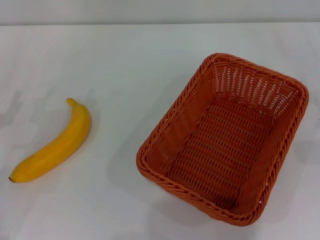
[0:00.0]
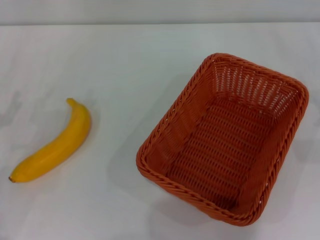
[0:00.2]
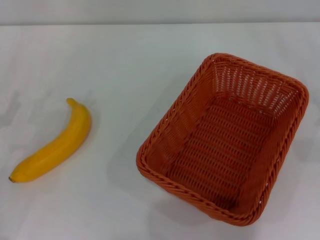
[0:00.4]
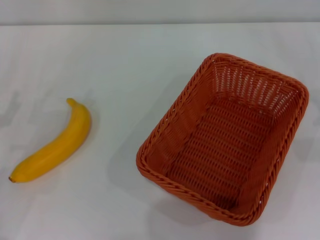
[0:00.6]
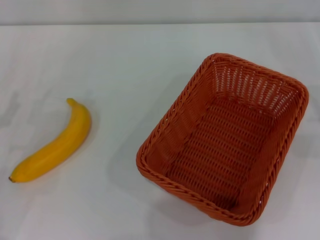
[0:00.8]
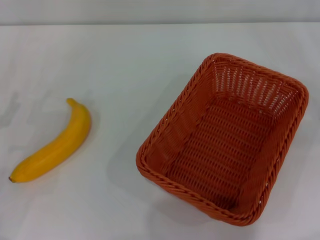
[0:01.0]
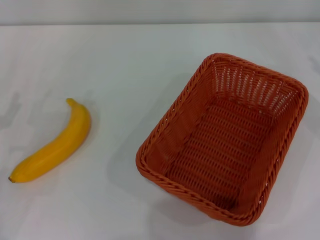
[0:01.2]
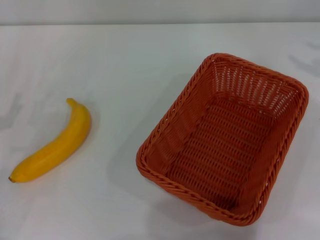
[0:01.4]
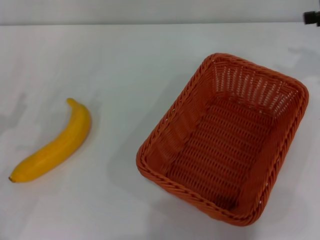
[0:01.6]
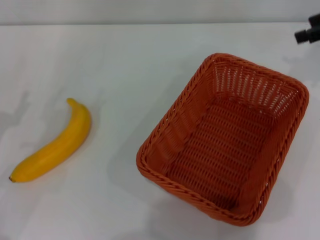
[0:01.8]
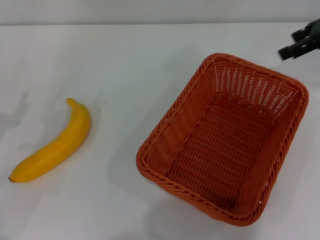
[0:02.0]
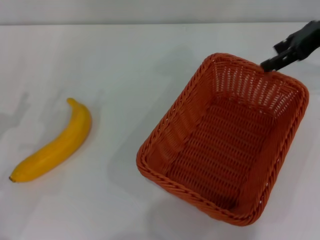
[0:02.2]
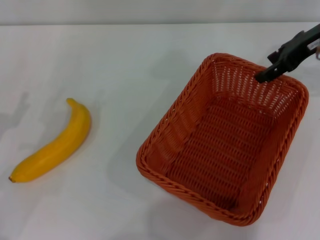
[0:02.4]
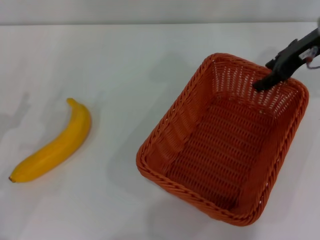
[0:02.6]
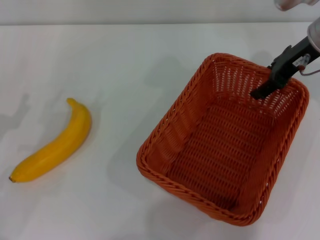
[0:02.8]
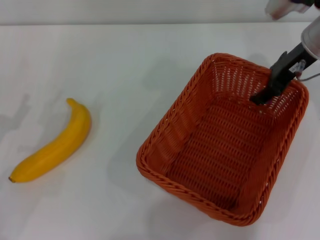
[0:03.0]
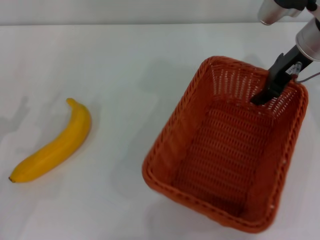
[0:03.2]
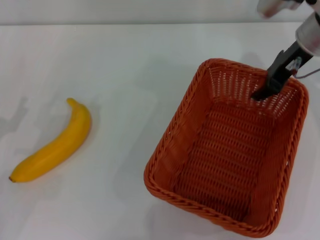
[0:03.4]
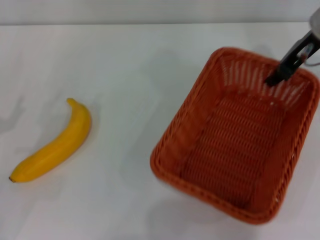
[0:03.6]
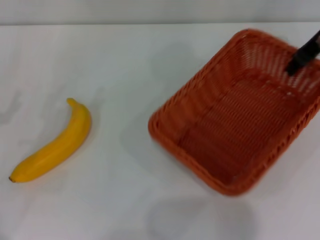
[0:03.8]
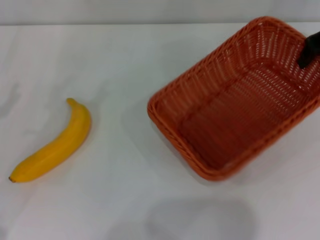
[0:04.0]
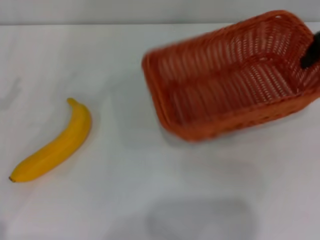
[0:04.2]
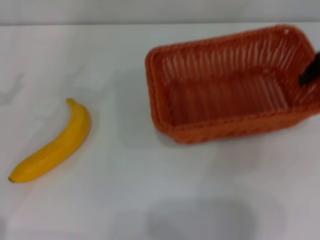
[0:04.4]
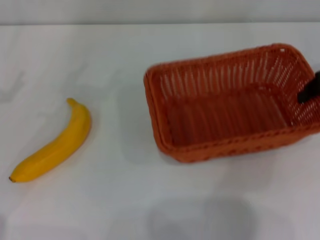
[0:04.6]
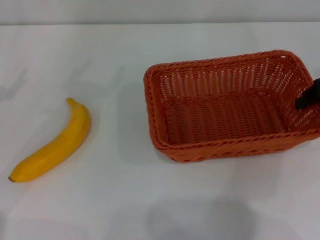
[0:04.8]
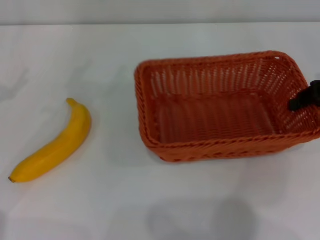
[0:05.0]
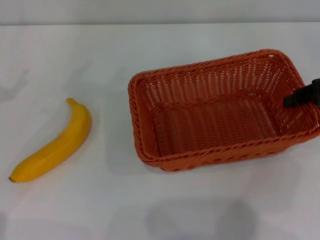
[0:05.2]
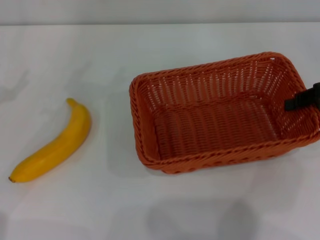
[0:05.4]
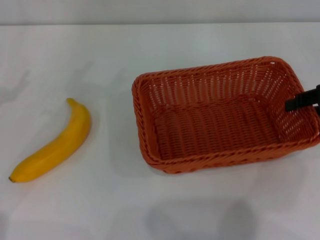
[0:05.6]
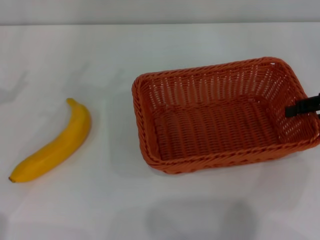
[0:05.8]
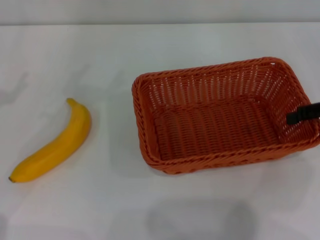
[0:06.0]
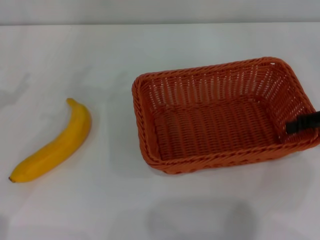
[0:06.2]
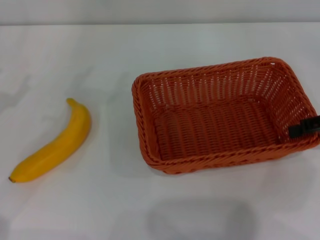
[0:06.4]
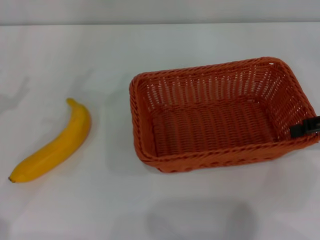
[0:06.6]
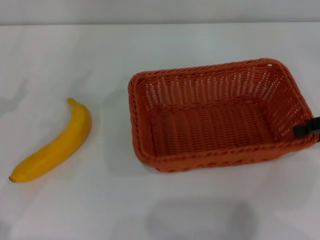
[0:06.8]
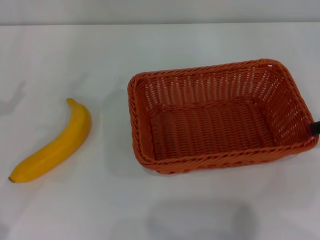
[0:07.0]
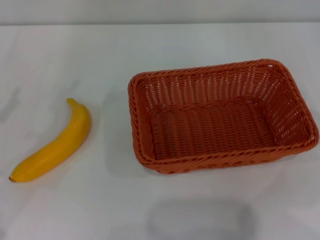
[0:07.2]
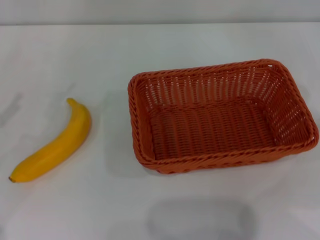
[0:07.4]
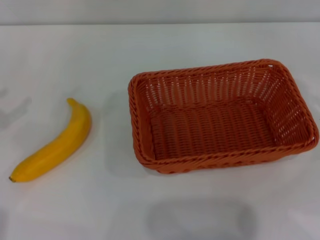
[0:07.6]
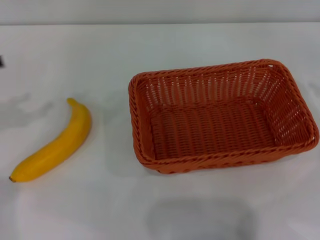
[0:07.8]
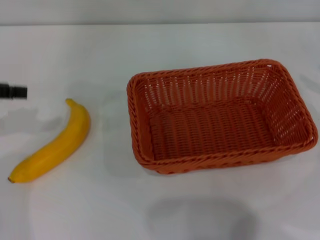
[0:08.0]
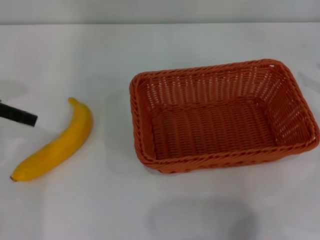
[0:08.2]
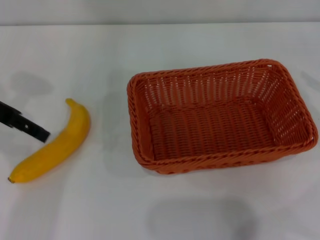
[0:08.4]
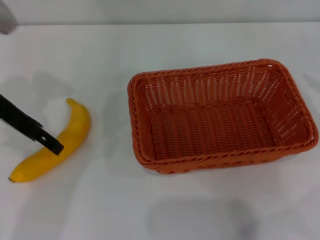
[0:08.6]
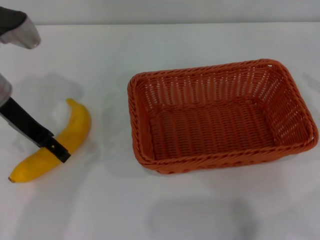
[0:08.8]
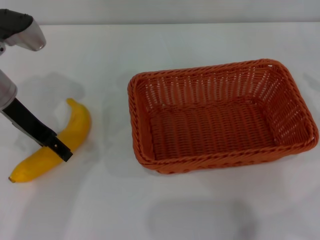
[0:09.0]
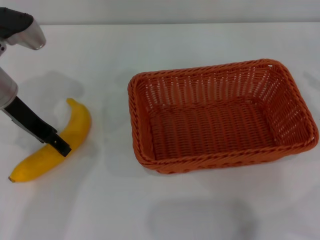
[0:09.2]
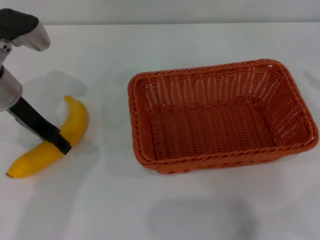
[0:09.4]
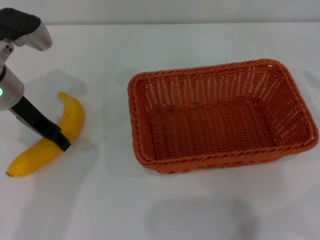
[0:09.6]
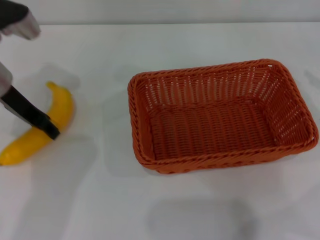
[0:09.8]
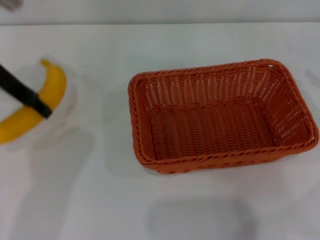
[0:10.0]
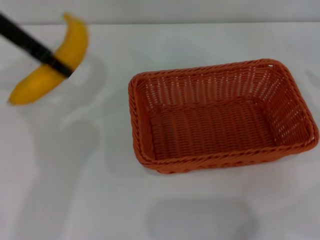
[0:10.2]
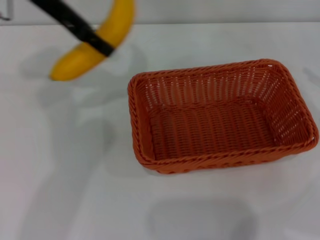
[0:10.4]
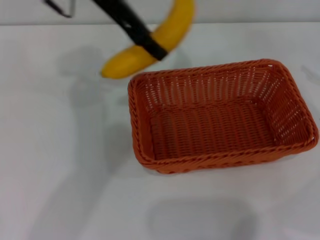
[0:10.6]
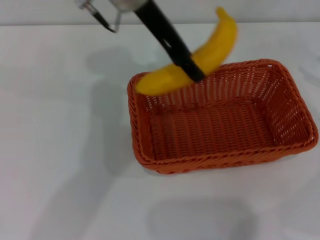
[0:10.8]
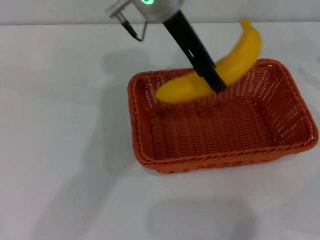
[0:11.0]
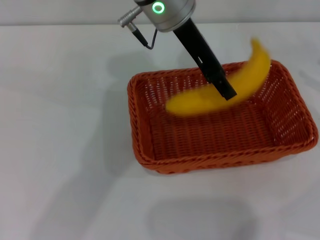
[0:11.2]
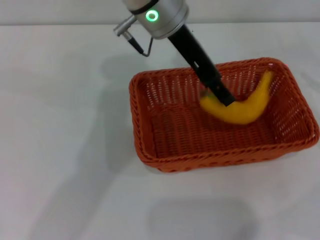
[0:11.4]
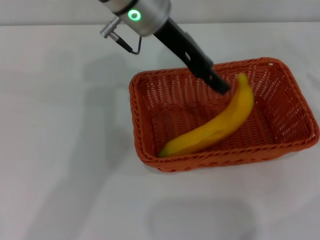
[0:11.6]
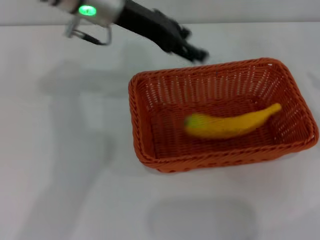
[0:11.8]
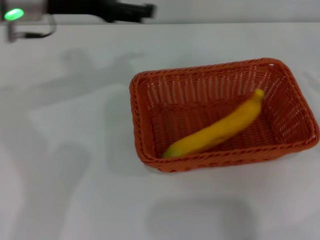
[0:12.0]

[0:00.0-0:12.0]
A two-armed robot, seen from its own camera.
Step, 0:00.0 to 0:04.2: Pick up the light basket with the right gripper.
Step, 0:04.4 to 0:07.4: Place the light basket in the center of view with the right gripper.
Step, 0:07.8 to 0:10.0: Pick up the banana with the left gripper.
Step, 0:10.2 to 0:11.8: Place the banana into the light basket with the left gripper.
0:00.0 to 0:01.6: The right gripper shifts roughly 20 cm upward and forward.
0:01.6 to 0:03.0: The right gripper travels to the left by about 15 cm.
0:03.0 to 0:04.4: The right gripper travels to the right by roughly 10 cm, and closes, while the left gripper heads upward, covering some 5 cm.
0:04.4 to 0:06.0: The right gripper travels backward and downward by about 10 cm, and opens up.
0:06.0 to 0:07.6: The right gripper moves to the right, roughly 10 cm, while the left gripper ends up roughly 5 cm from where it was.
0:07.6 to 0:09.0: The left gripper is displaced to the right and forward by roughly 20 cm.
0:09.0 to 0:10.4: The left gripper goes approximately 15 cm upward, to the right and forward, and closes up.
0:10.4 to 0:12.0: The left gripper shifts approximately 5 cm downward, moves some 20 cm to the right and comes back, and opens its fingers.

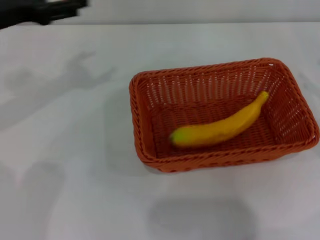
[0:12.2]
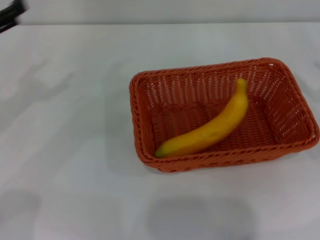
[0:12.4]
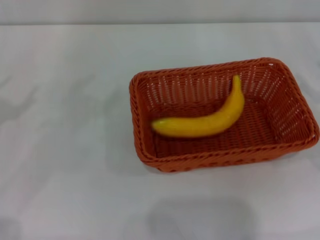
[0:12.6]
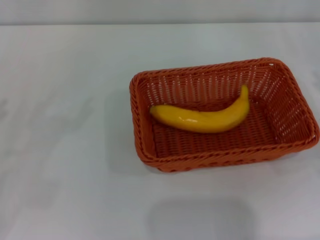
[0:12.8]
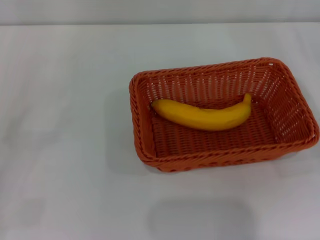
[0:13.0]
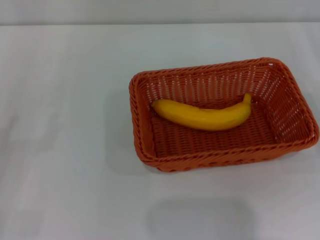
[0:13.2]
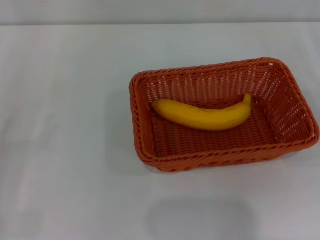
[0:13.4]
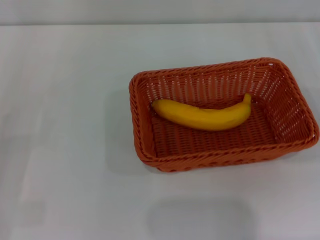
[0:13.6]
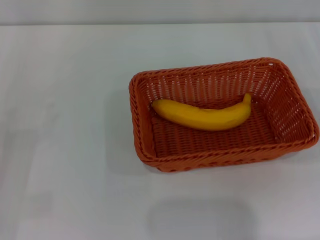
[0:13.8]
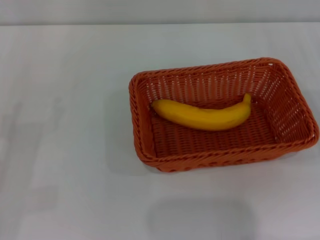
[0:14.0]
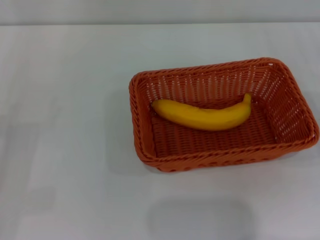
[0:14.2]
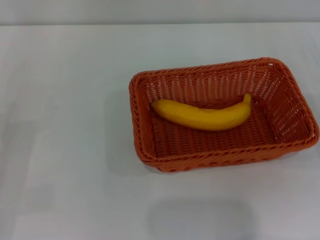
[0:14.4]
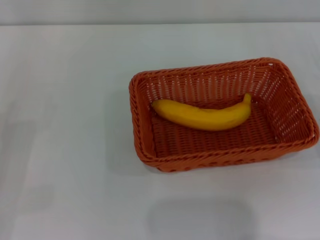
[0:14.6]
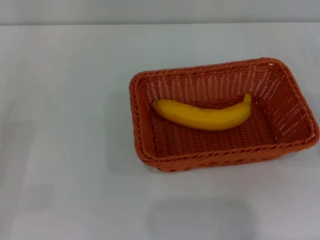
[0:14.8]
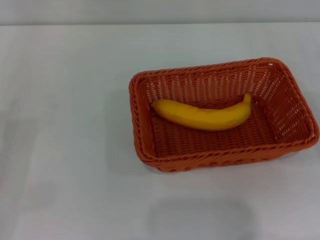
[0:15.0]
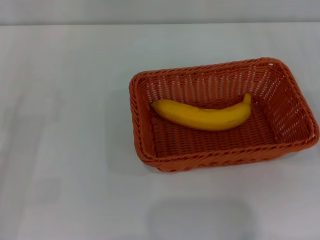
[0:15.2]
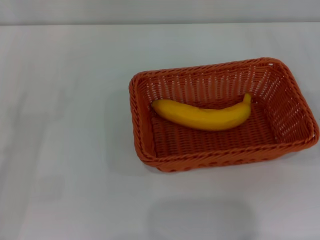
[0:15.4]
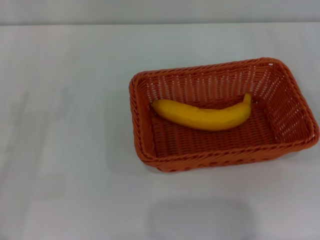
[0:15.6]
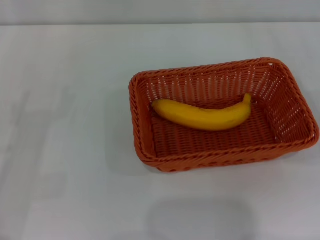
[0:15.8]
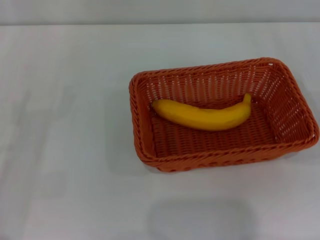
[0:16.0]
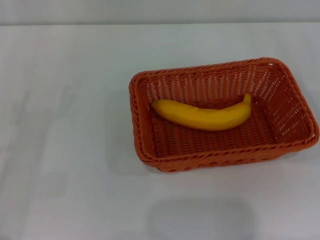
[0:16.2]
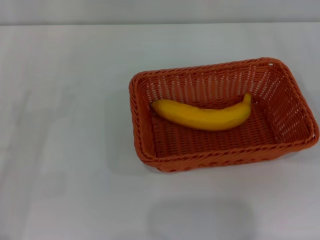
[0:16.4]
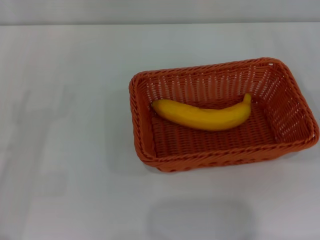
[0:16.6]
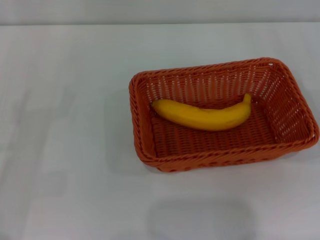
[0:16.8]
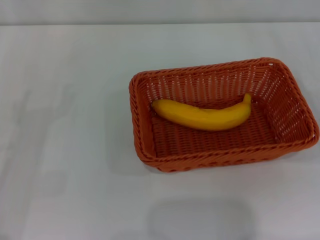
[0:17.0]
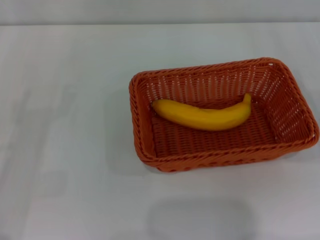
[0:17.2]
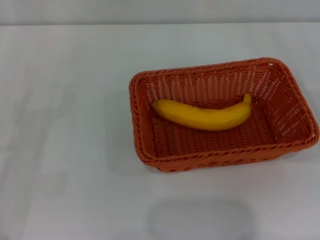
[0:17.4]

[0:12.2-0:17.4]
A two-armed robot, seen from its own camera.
0:12.2 to 0:14.0: The left gripper moves backward, downward and to the left, approximately 20 cm; the right gripper heads downward, covering some 5 cm.
0:15.6 to 0:17.4: The two grippers keep their place.

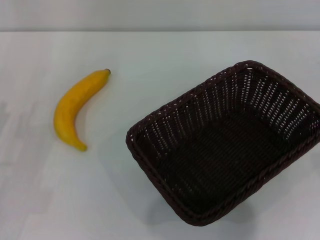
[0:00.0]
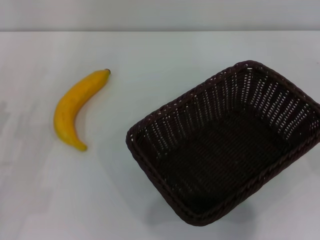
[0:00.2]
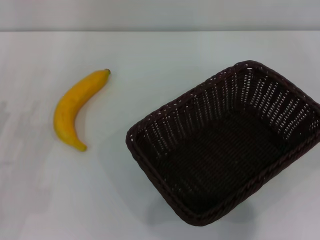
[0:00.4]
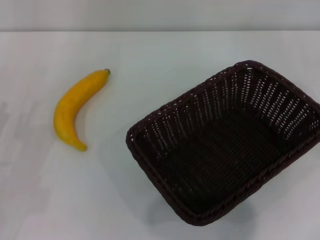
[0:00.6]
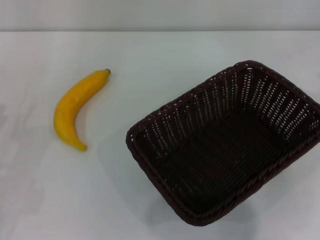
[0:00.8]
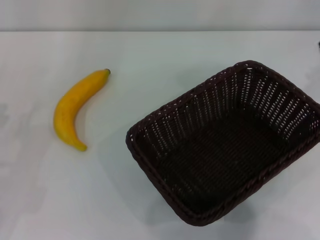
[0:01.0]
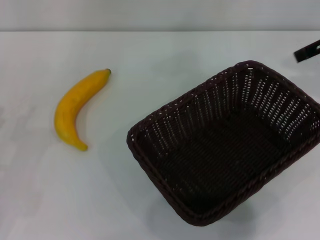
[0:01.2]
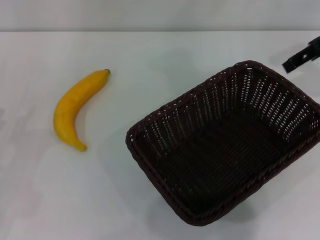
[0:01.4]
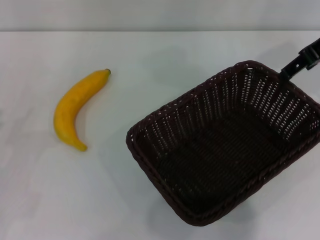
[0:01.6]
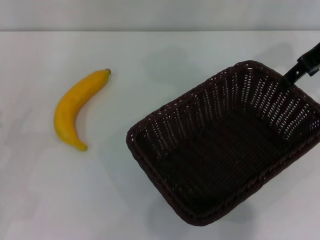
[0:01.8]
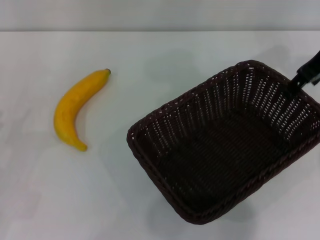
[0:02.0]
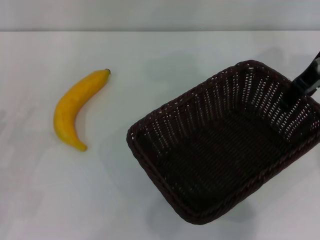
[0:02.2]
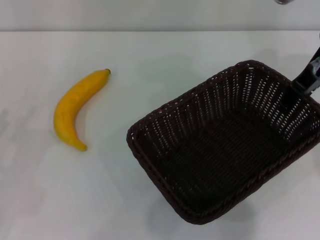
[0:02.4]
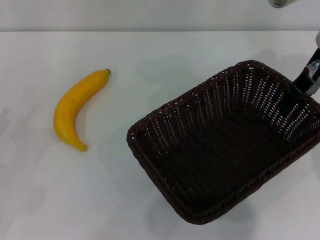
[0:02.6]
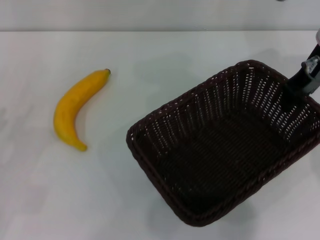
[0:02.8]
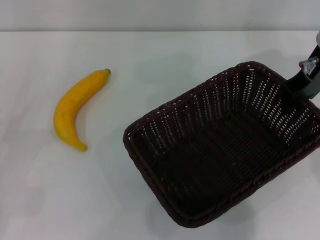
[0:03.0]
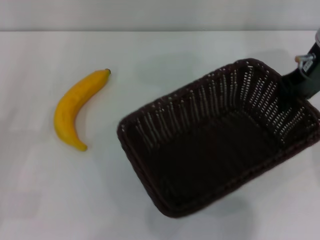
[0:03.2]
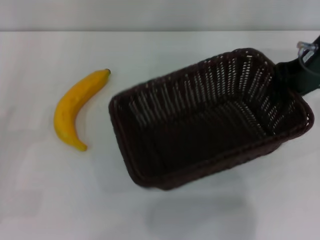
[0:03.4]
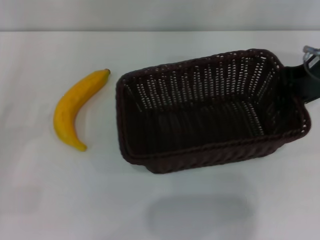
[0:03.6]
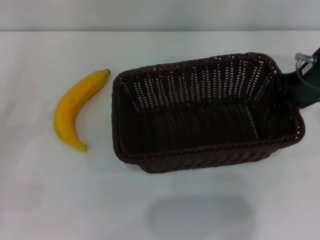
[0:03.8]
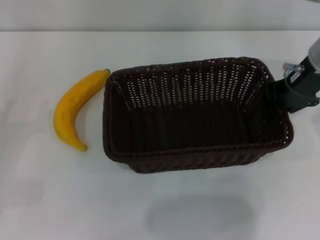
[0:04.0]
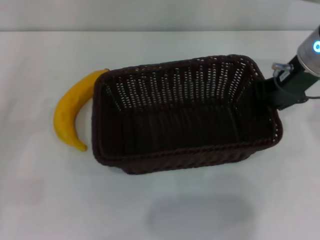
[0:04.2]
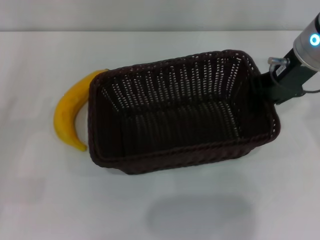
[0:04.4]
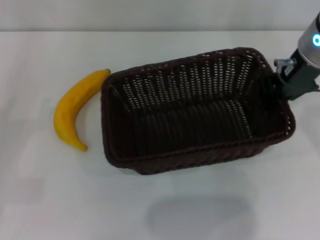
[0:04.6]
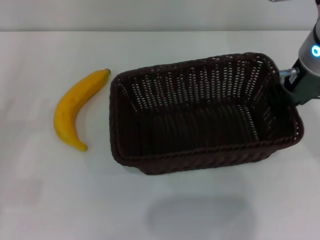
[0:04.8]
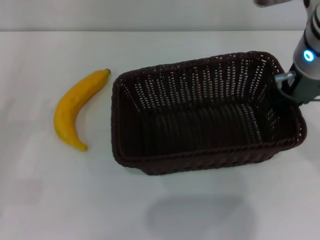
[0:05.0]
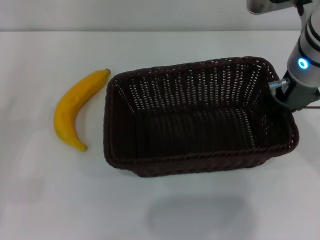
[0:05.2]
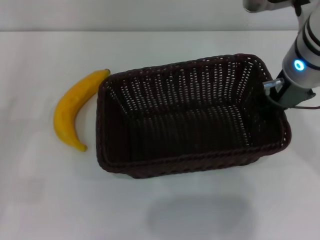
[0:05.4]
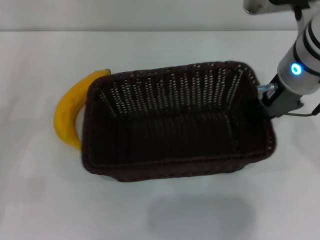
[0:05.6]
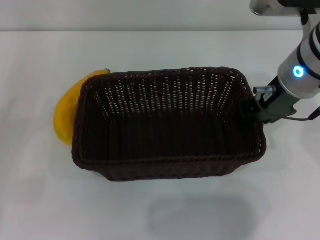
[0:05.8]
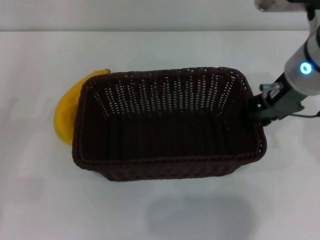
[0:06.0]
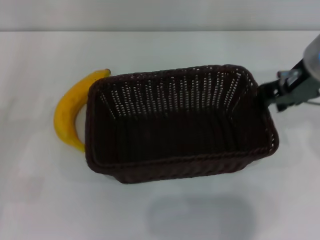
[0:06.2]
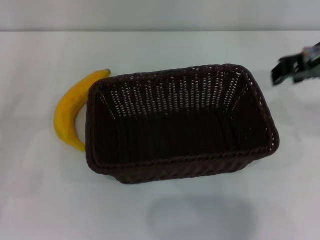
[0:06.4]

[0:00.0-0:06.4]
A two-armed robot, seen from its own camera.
Step, 0:00.0 to 0:03.2: Pick up the dark basket with the right gripper.
Step, 0:03.4 to 0:06.2: Place the dark basket in the center of view with the right gripper.
0:00.0 to 0:01.6: The right gripper goes about 30 cm to the left, forward and upward.
0:01.6 to 0:03.2: The right gripper shifts by about 5 cm, and closes.
0:03.2 to 0:04.8: The right gripper moves roughly 5 cm.
0:04.8 to 0:06.4: The right gripper shifts by about 5 cm.
